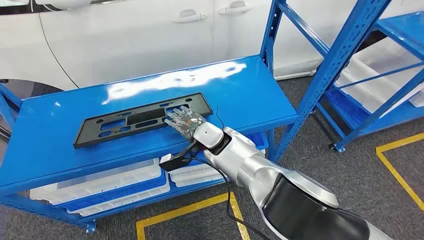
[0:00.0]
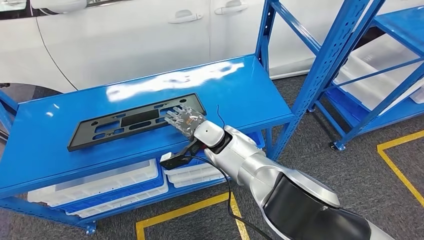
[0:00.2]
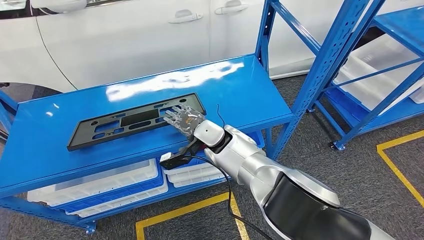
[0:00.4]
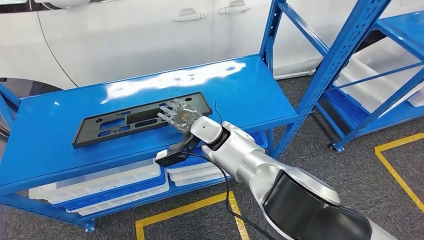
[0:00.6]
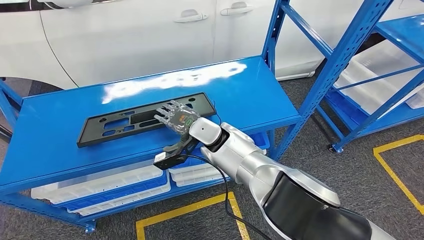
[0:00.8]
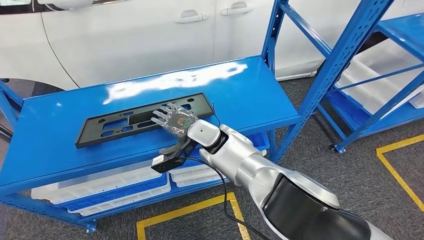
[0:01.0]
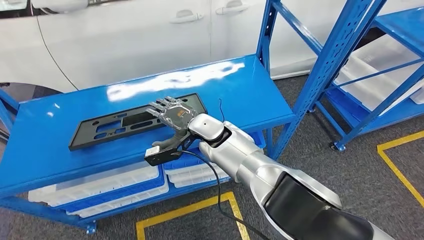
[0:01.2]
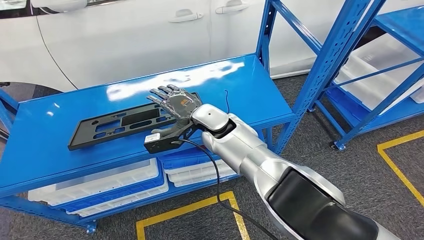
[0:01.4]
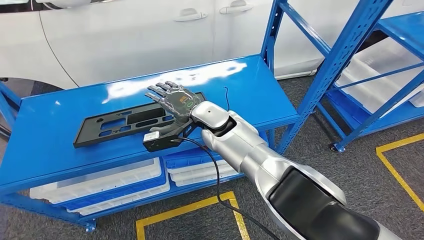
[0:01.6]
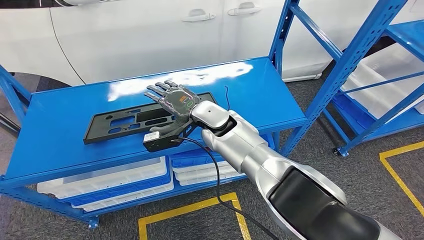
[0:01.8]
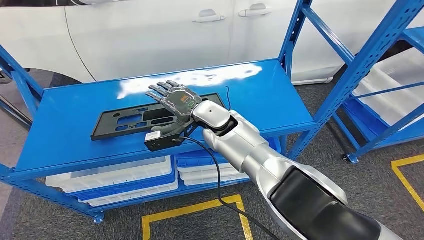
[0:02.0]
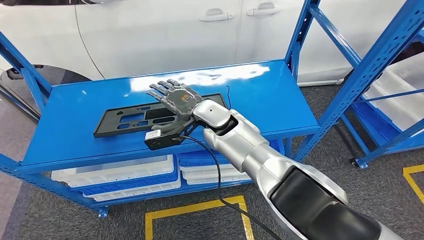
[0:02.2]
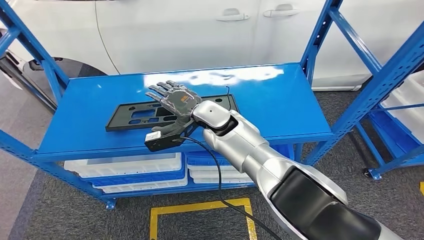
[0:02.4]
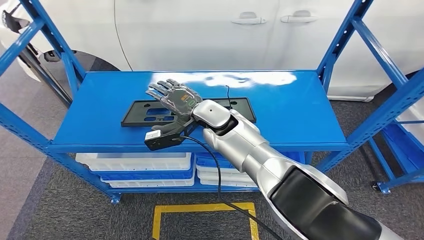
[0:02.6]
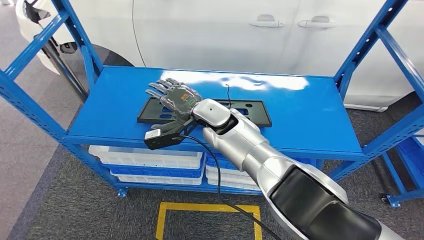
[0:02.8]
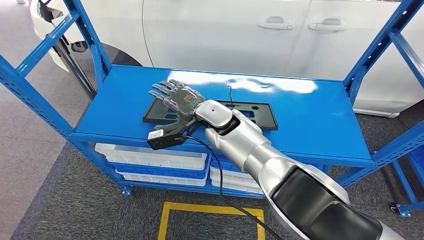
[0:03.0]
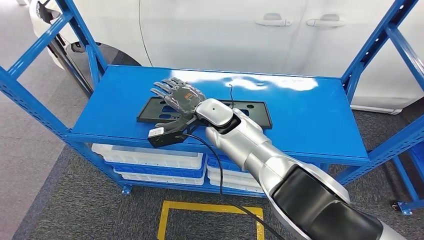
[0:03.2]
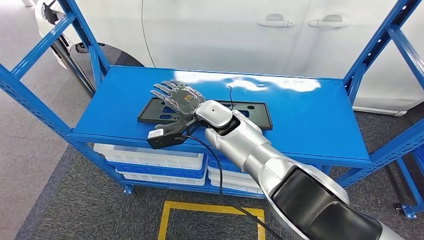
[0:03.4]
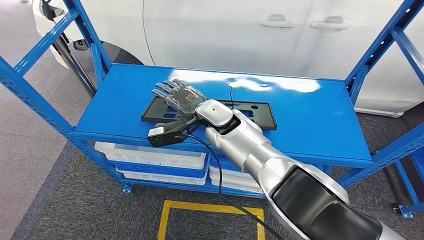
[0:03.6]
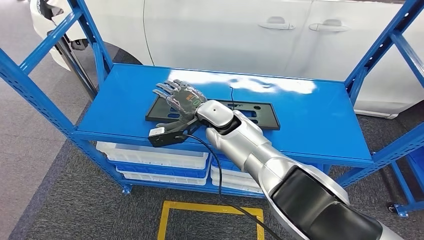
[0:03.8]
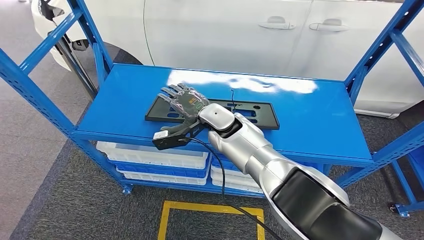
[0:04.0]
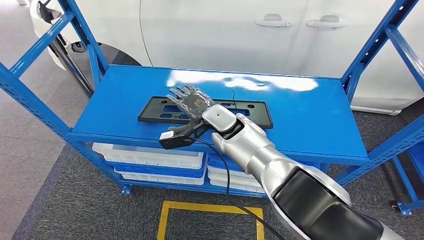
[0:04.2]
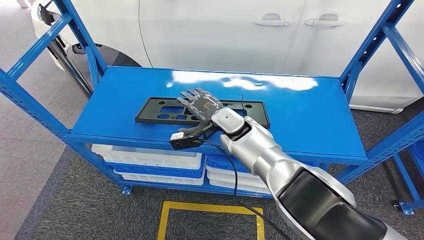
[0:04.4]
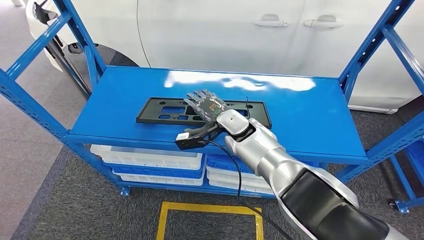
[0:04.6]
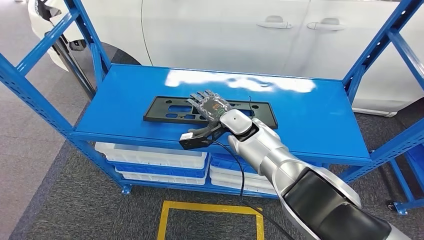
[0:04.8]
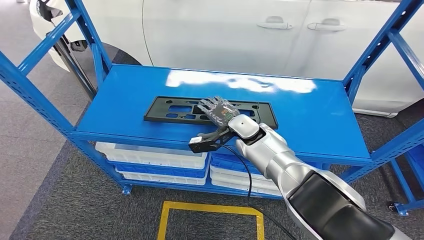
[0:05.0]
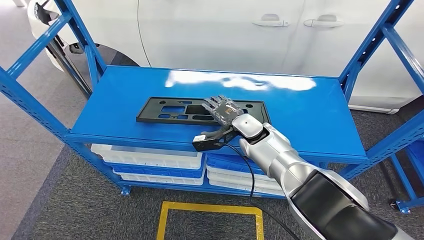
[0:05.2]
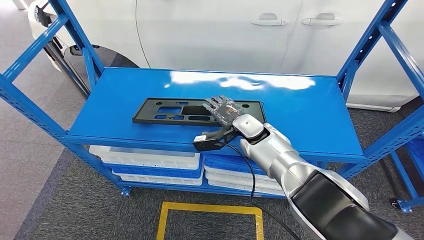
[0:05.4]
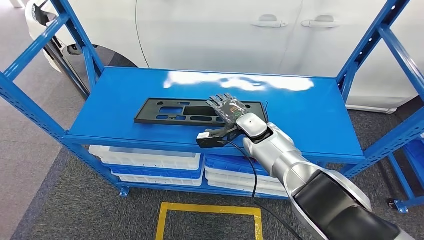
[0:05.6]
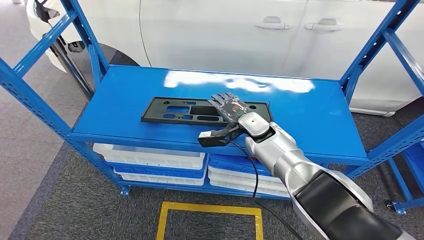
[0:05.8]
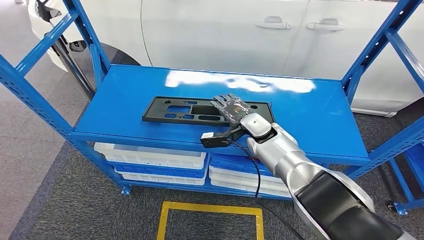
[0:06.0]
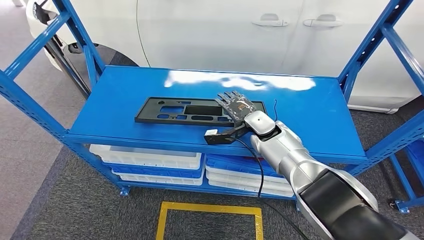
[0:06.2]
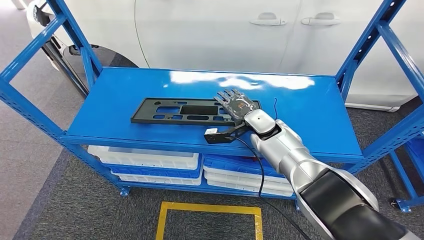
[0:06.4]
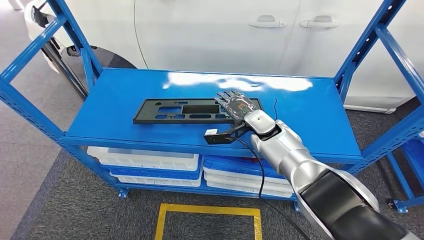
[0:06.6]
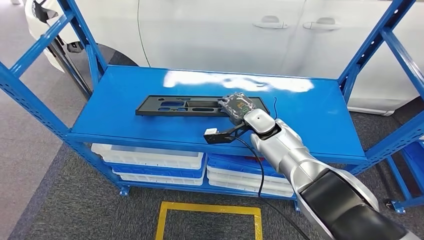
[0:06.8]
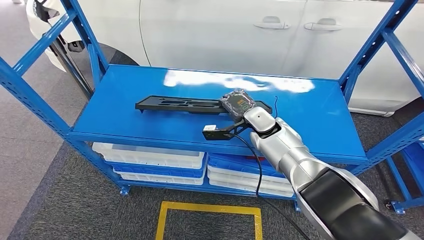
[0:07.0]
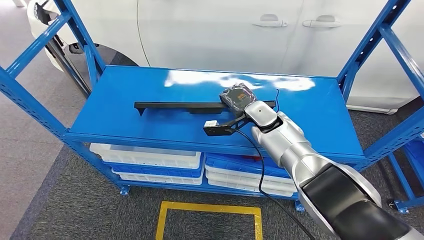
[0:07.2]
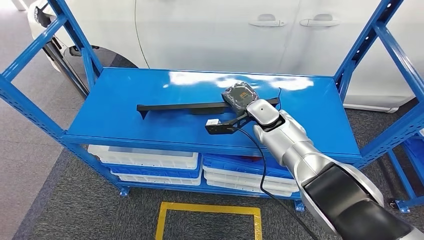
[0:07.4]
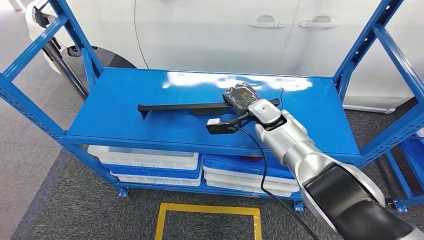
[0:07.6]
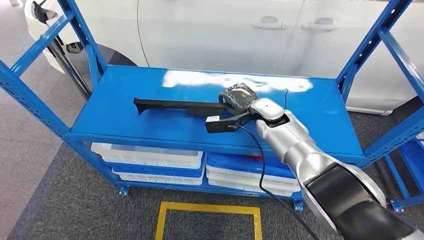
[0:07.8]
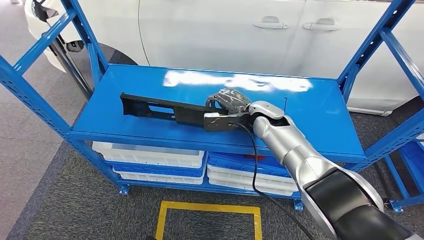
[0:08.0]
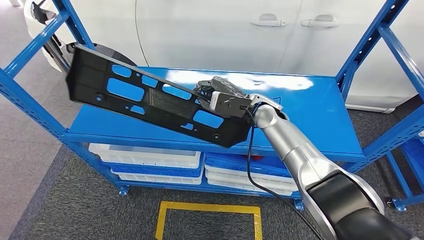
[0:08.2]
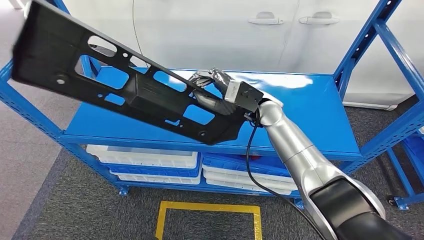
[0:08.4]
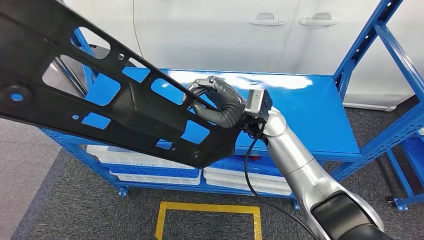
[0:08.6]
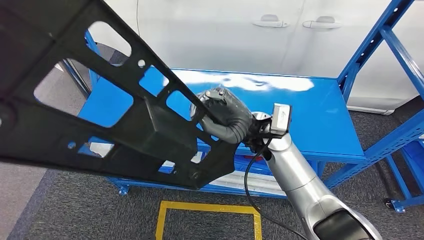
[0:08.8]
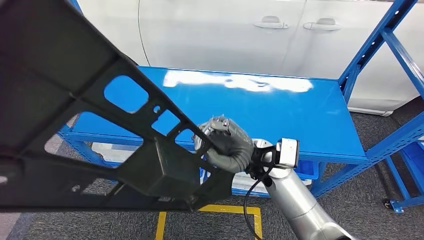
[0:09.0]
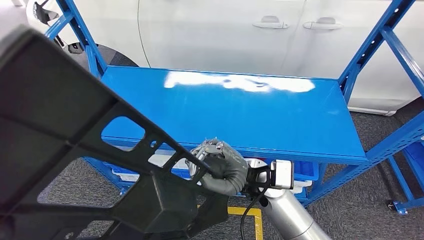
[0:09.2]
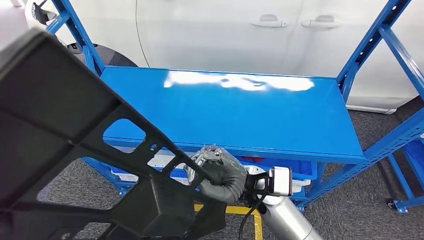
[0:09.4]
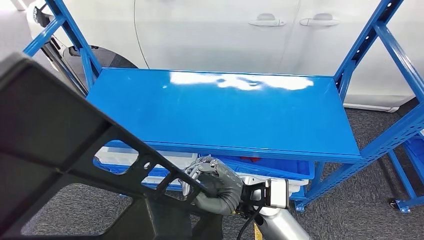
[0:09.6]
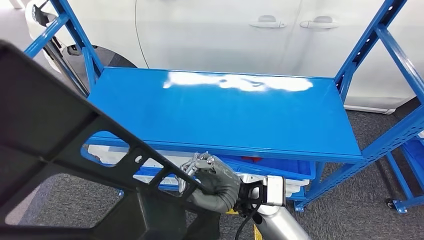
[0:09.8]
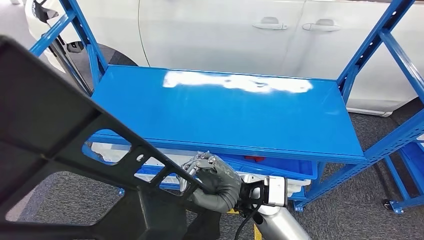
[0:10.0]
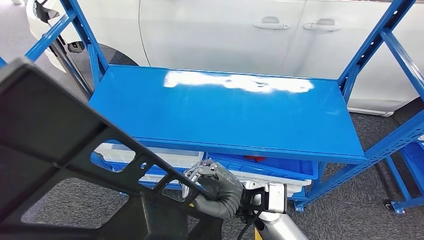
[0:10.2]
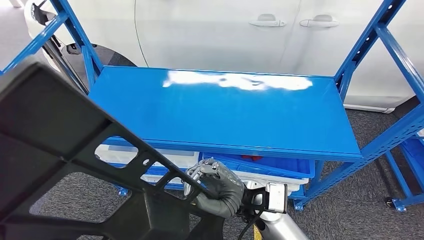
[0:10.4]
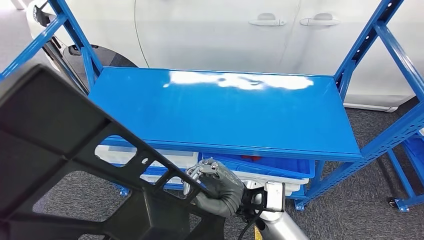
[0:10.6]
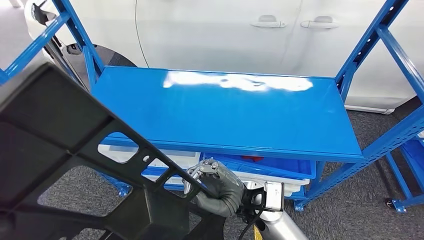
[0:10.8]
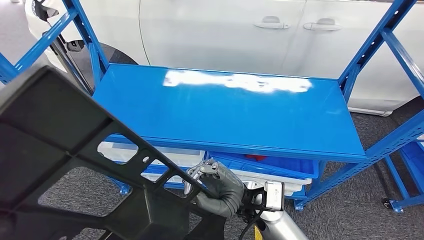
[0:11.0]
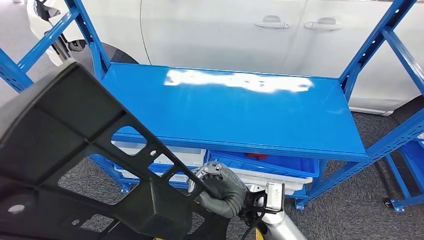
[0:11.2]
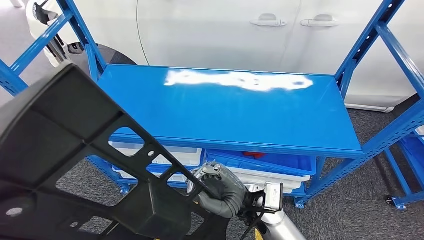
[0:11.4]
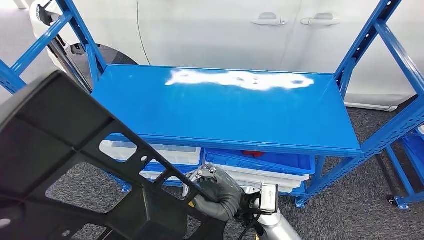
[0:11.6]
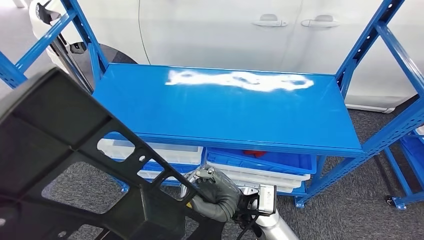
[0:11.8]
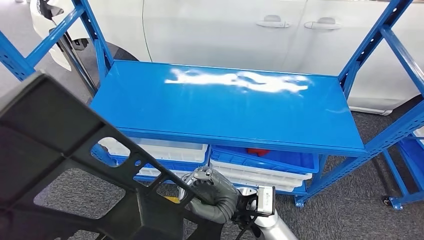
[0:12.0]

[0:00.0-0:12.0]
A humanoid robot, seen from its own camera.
Step, 0:00.0 to 0:09.8: Pick up the large material from the shelf.

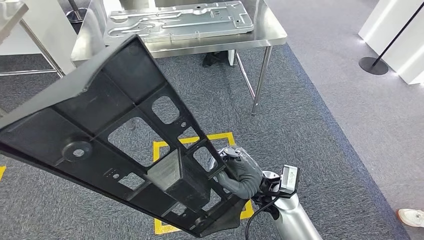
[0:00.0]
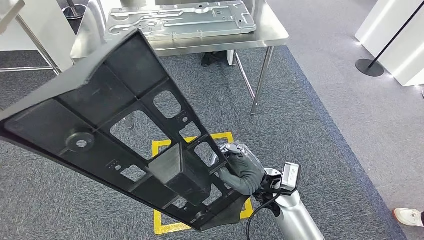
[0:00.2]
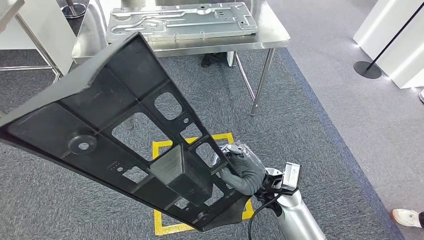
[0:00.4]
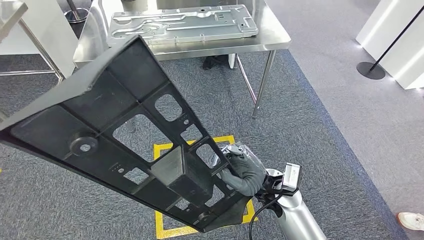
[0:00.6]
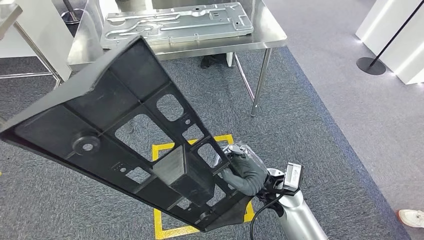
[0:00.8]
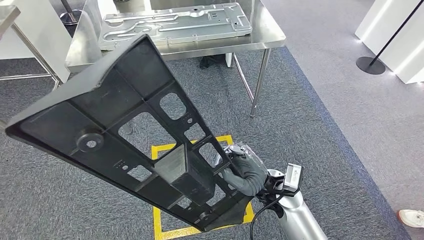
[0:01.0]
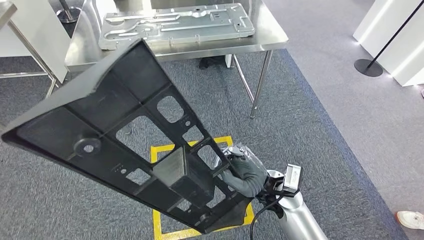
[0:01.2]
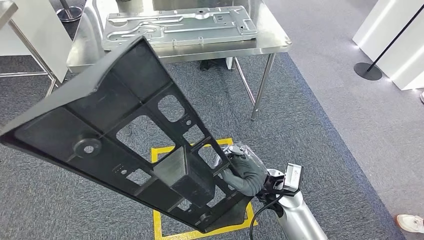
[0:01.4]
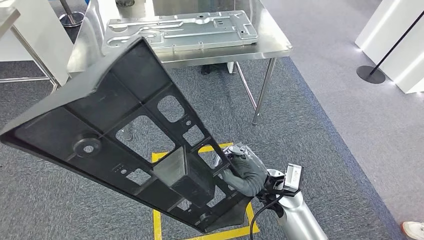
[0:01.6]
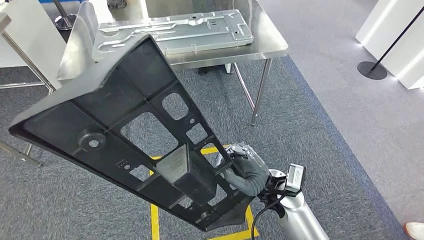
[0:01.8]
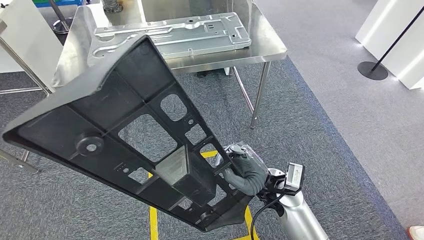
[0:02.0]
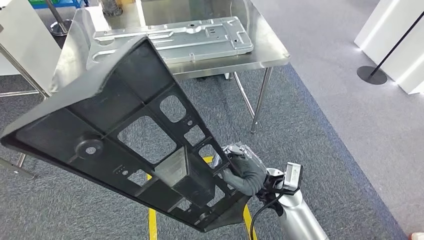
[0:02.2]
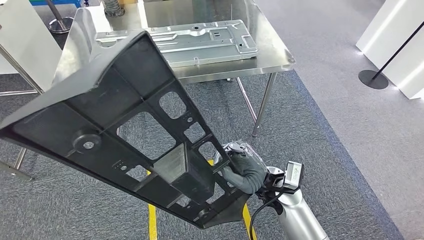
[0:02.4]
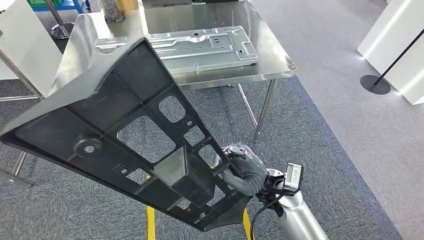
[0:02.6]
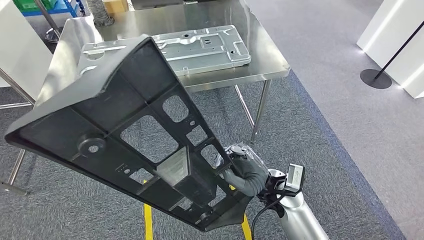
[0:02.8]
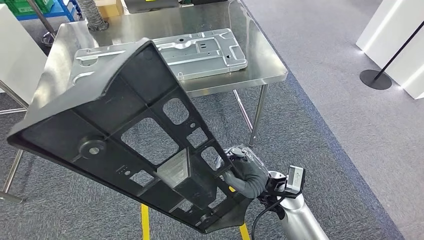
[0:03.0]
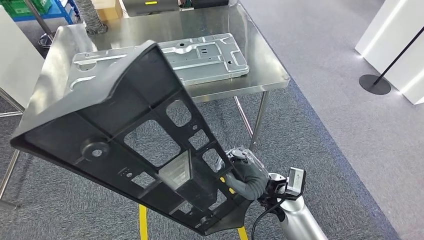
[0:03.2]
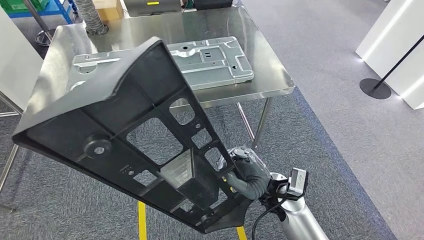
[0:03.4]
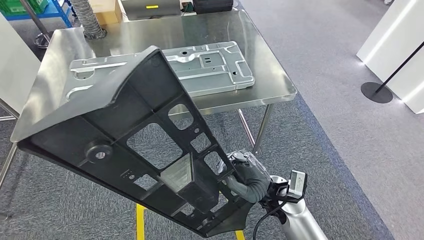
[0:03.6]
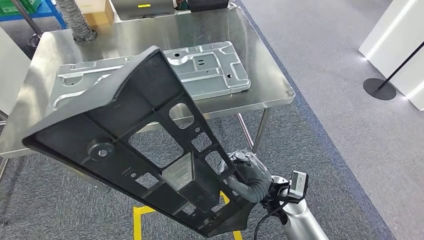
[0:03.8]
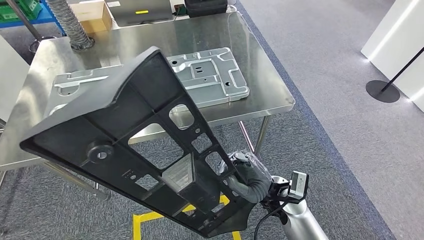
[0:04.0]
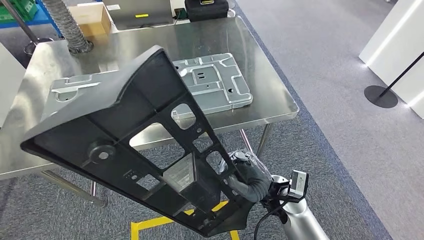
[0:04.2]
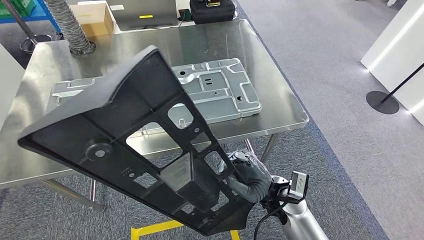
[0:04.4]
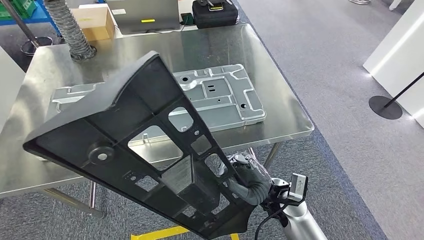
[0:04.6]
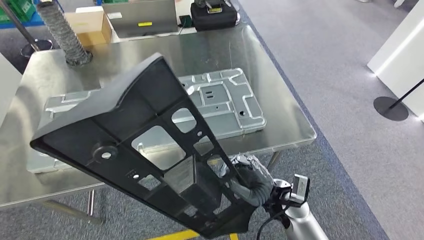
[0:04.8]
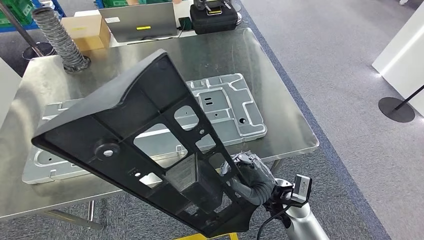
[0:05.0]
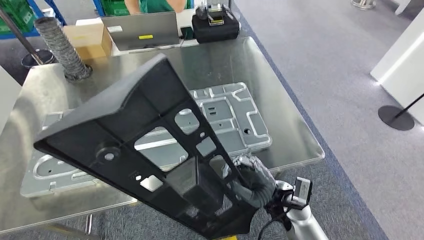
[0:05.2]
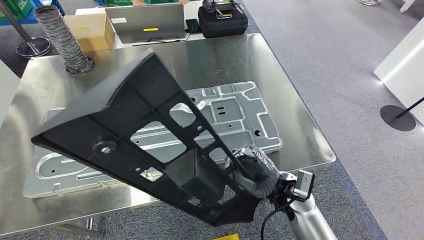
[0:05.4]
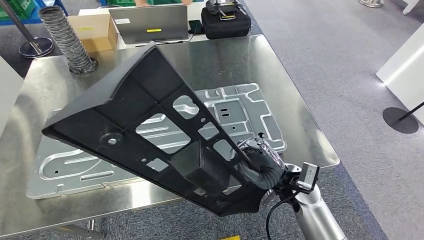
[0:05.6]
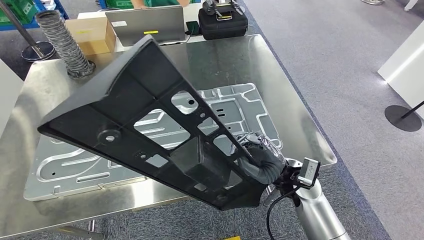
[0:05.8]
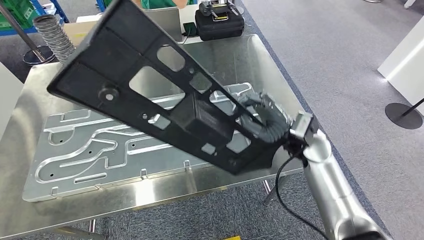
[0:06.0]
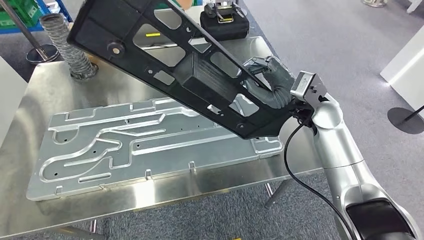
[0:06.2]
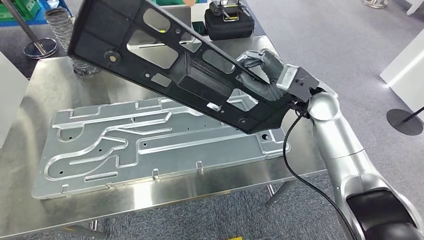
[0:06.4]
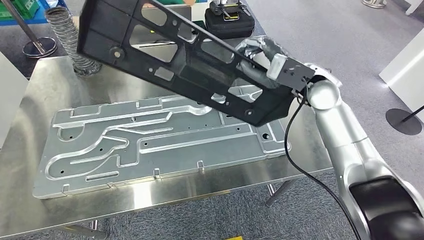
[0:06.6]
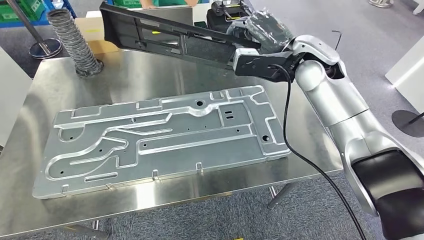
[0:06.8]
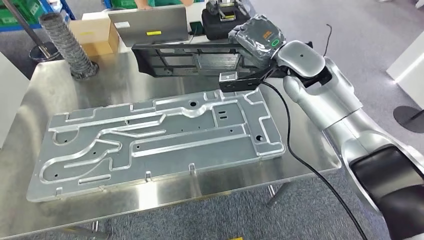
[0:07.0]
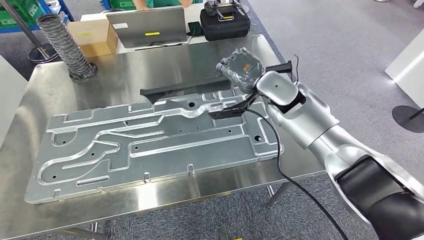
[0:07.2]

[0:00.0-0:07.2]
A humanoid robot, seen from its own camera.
Step, 0:00.0 to 0:05.2: Move the large material to the workbench.
